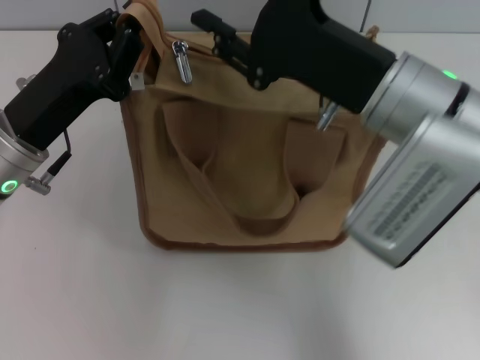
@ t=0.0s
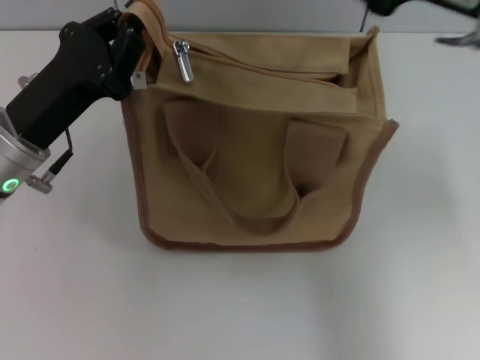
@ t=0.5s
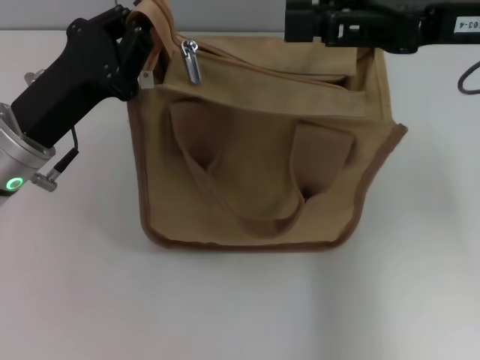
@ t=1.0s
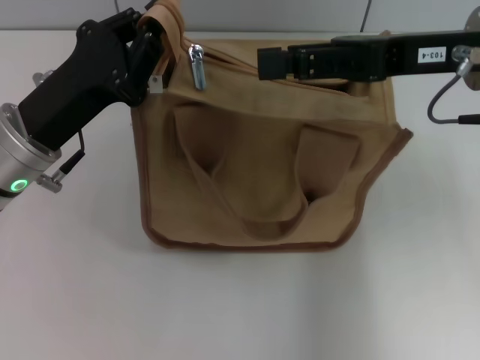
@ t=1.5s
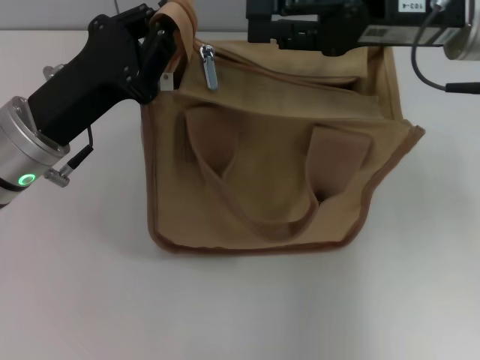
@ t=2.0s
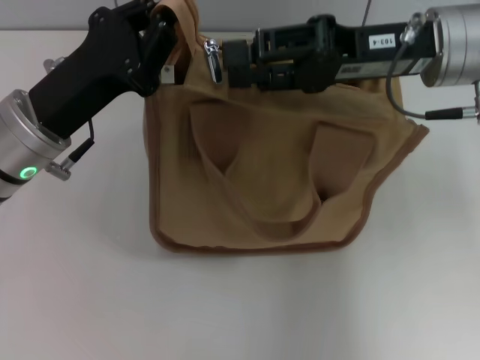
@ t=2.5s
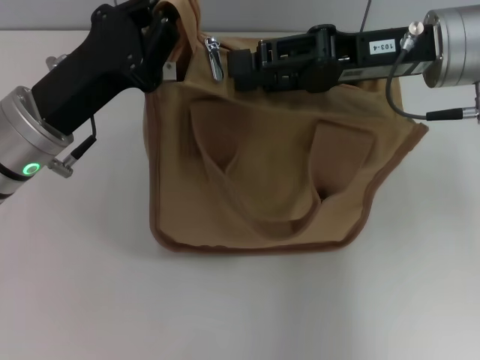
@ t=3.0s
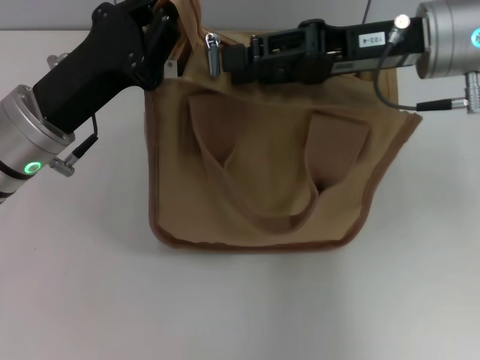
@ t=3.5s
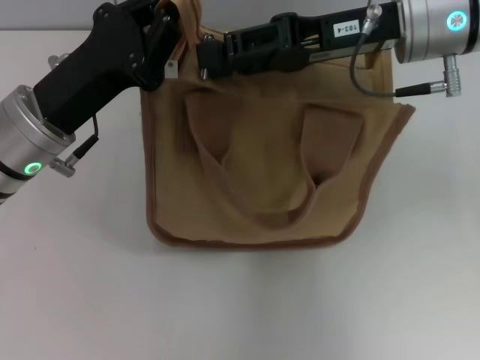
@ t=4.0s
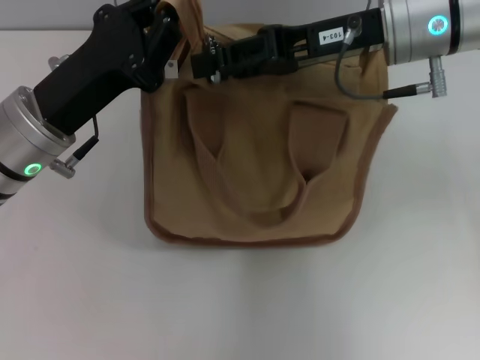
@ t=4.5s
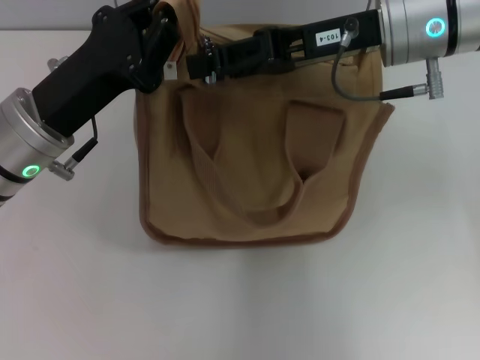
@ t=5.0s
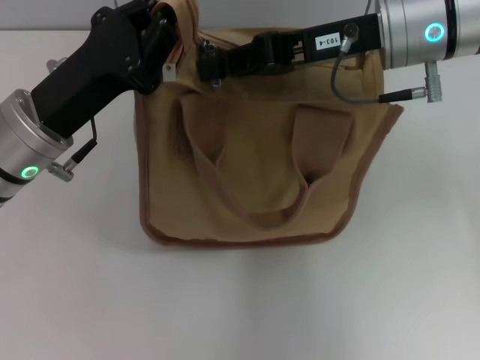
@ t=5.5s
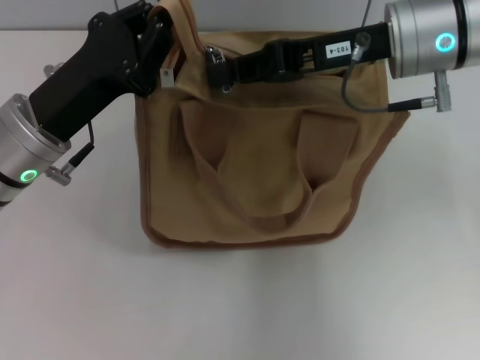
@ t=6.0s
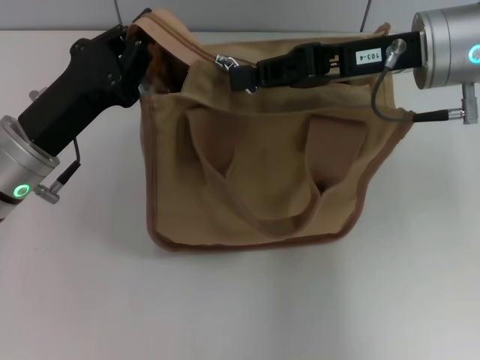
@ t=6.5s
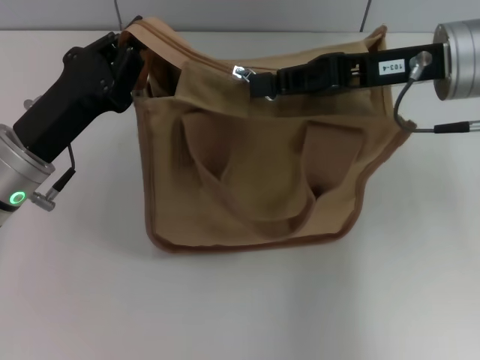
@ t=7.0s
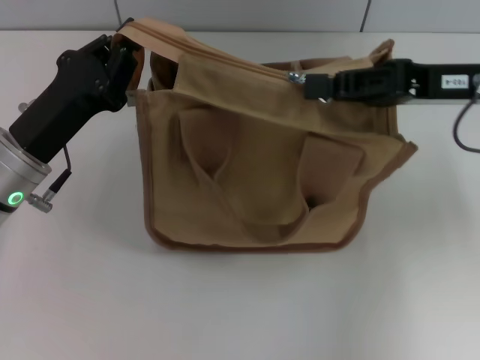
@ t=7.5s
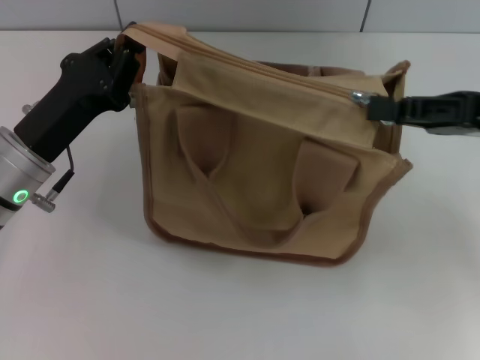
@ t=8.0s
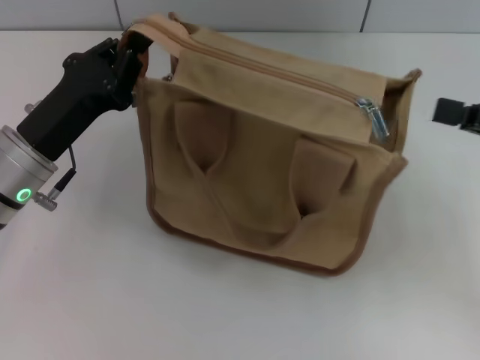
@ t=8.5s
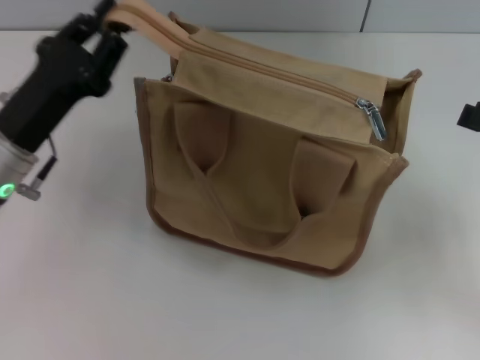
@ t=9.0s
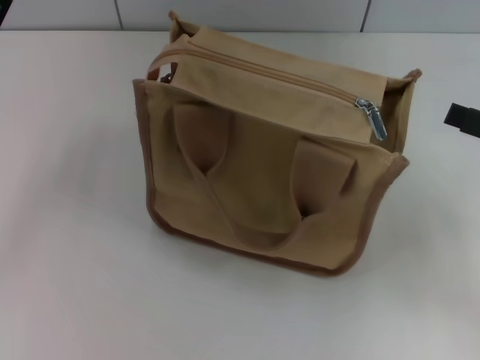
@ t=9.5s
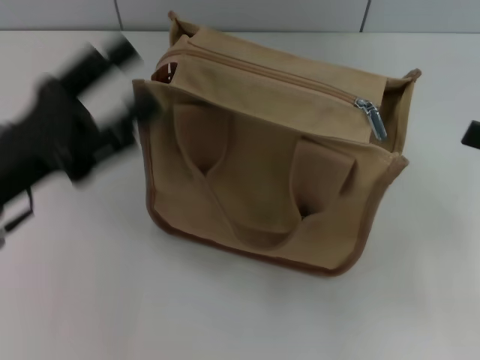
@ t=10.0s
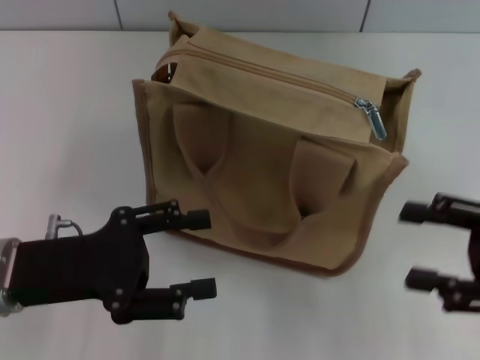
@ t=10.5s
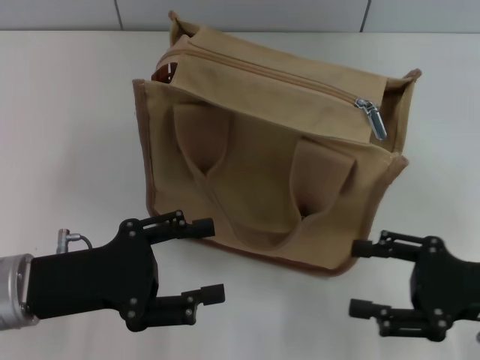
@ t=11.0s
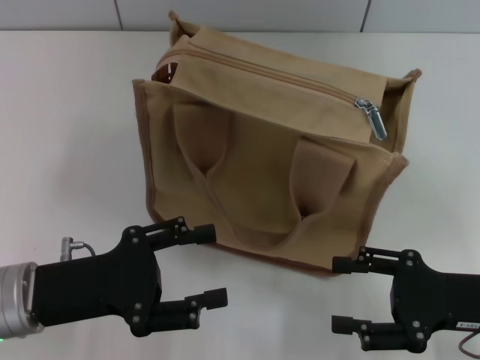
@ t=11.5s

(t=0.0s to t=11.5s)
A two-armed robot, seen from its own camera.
Step, t=0.0s - t=8.0s: Pull up the zipper with your right hand.
t=0.0s - t=2.0s: The right gripper heads forward and to the right, covering about 10 cm.
t=4.0s - t=6.0s: The right gripper closes up.
t=6.0s - t=7.5s: The right gripper travels to the right by approximately 10 cm.
t=7.5s - t=9.5s: The left gripper heads to the left, covering about 5 cm, and opens up. Meanwhile the right gripper shifts some 15 cm to the right and backward, and opens up.
t=9.5s - t=11.5s: The left gripper goes some 10 cm backward and downward, while the right gripper goes some 10 cm downward and to the left.

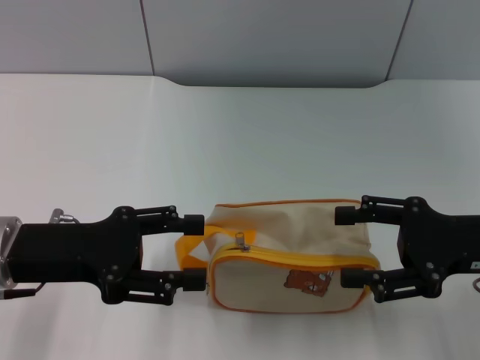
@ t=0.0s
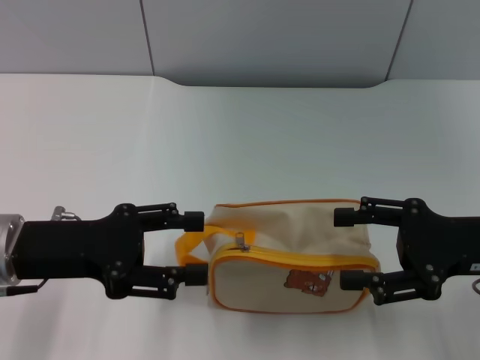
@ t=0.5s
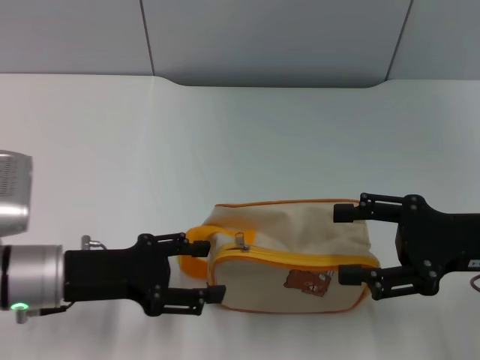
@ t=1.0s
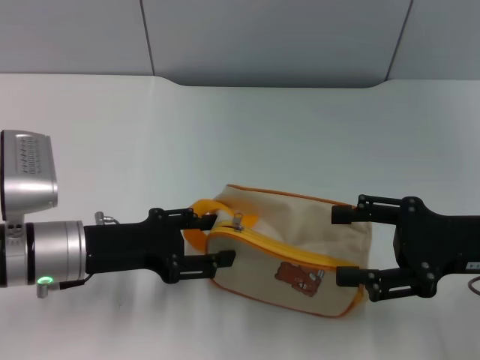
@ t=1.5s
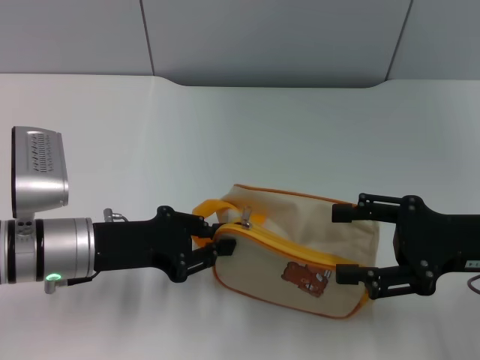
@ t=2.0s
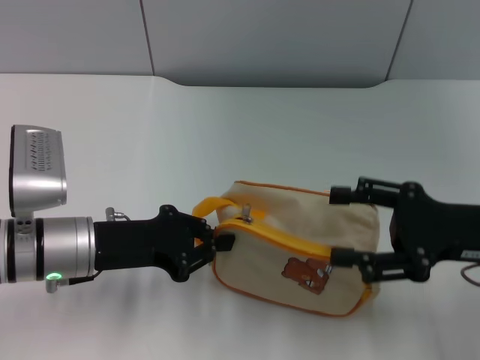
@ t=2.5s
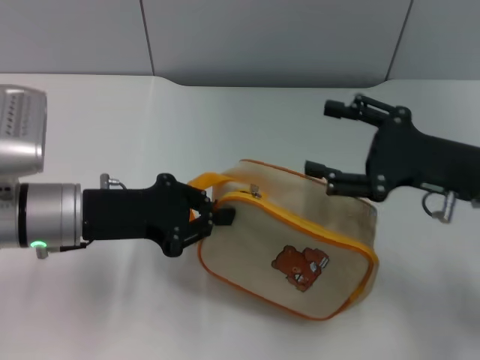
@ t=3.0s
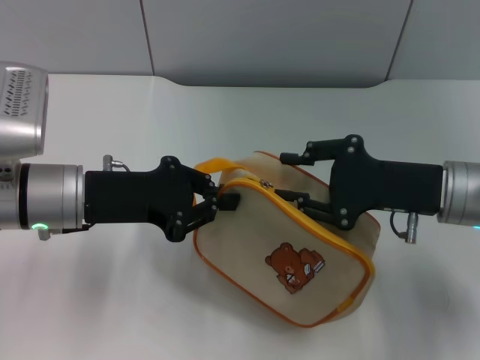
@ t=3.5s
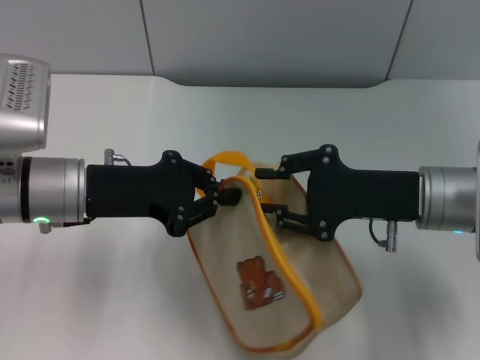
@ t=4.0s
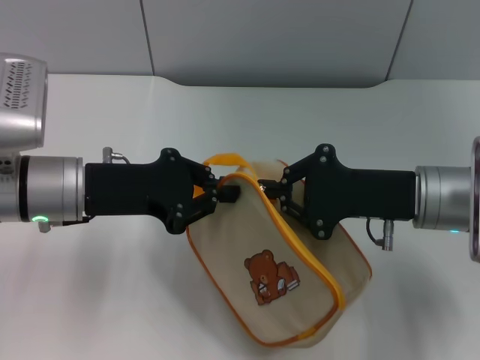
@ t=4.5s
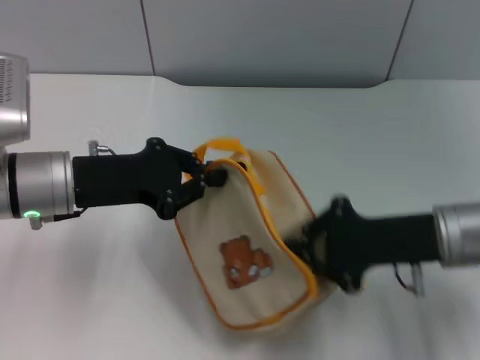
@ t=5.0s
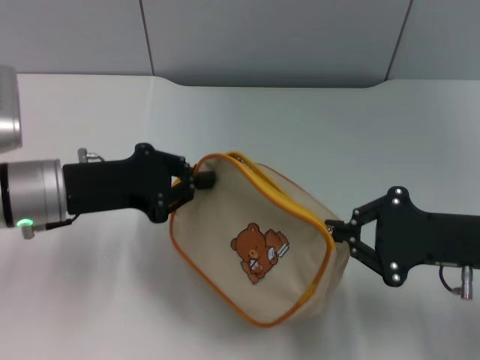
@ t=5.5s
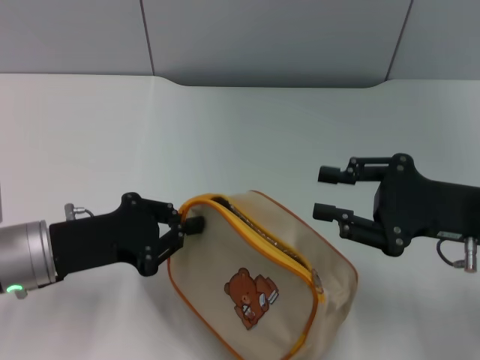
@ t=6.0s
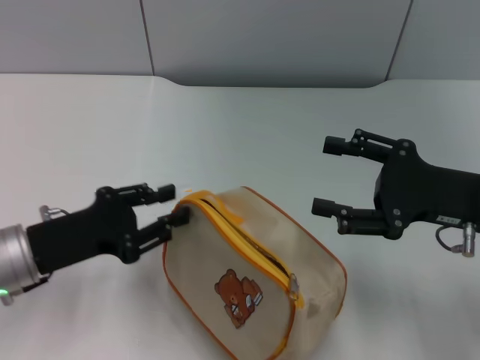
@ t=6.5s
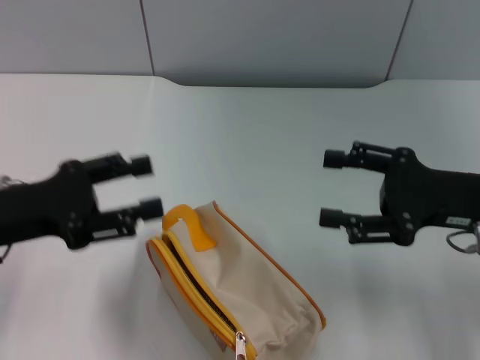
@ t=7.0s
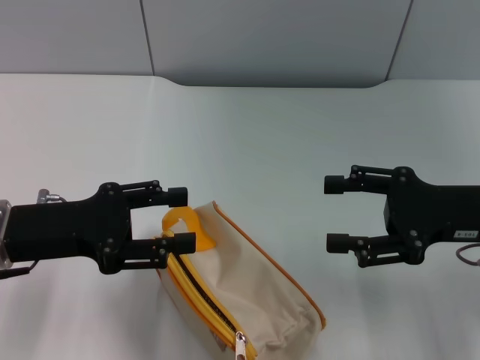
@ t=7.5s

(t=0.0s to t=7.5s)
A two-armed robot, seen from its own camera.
Step, t=0.0s - t=3.0s: Pick up the bag with left gripper.
Step, t=3.5s - t=5.5s: Unzip the zipper of bag with right gripper.
Step, t=6.0s - t=6.5s: Place the bag on the table with left gripper.
t=0.0s - t=2.0s: The left gripper travels downward by some 5 cm, and closes up.
t=2.0s - t=4.0s: The right gripper heads to the left, covering about 5 cm, and closes, while the left gripper goes roughly 5 cm upward, and closes up.
t=4.0s - t=5.5s: The right gripper is displaced to the right by some 5 cm, and closes up.
t=5.5s - t=7.5s: The right gripper opens its fingers. Meanwhile the left gripper moves some 5 cm, and opens.

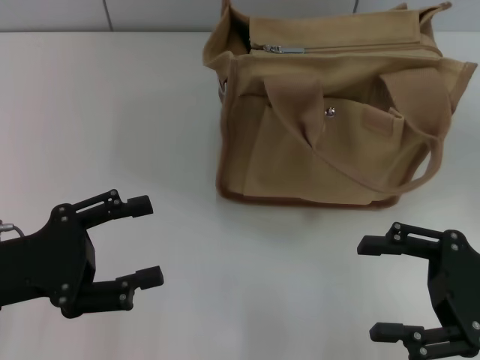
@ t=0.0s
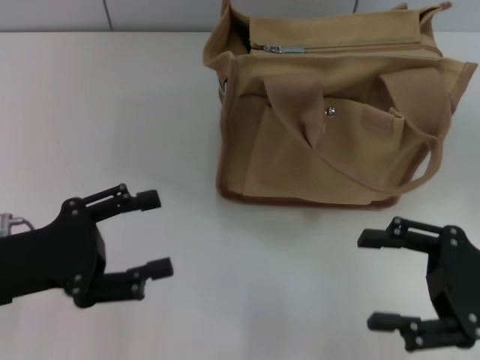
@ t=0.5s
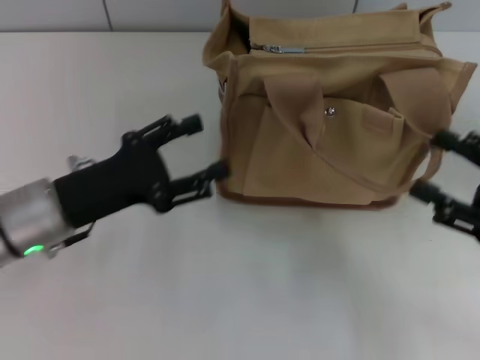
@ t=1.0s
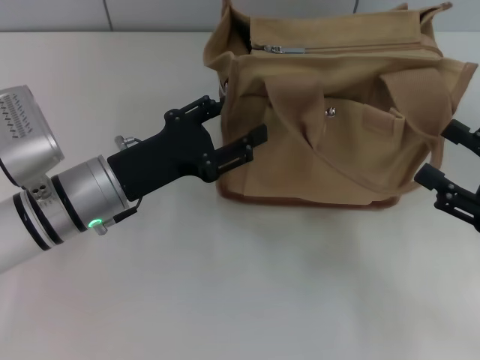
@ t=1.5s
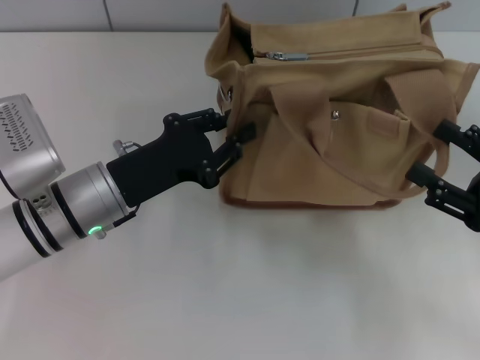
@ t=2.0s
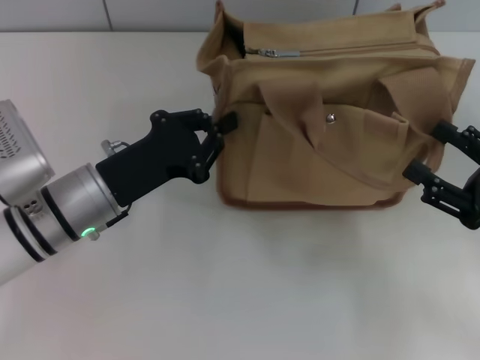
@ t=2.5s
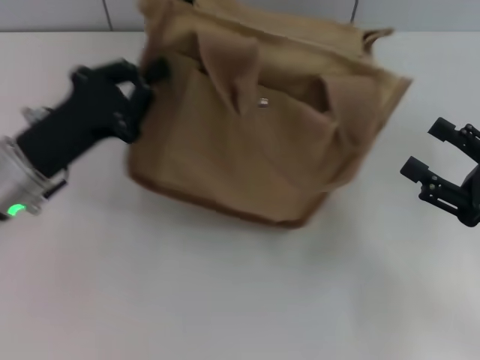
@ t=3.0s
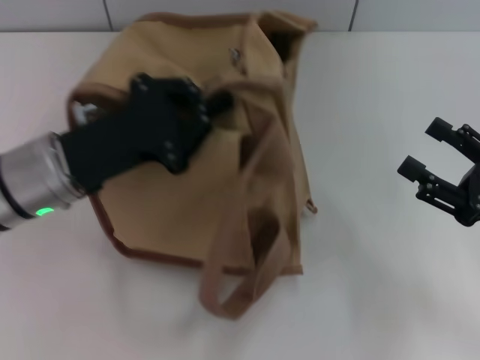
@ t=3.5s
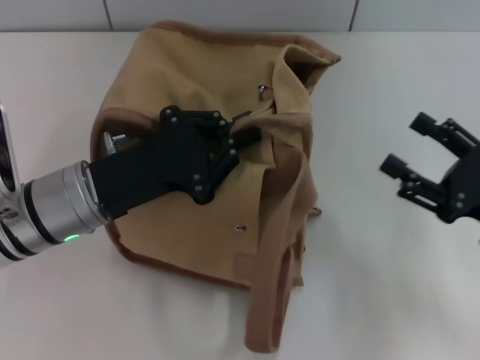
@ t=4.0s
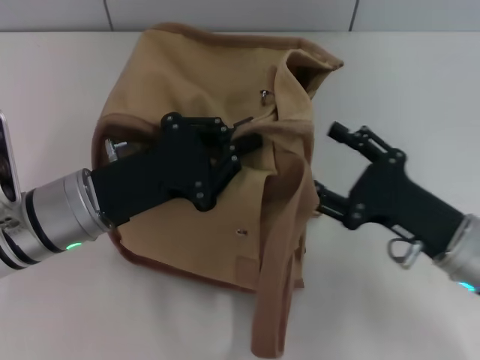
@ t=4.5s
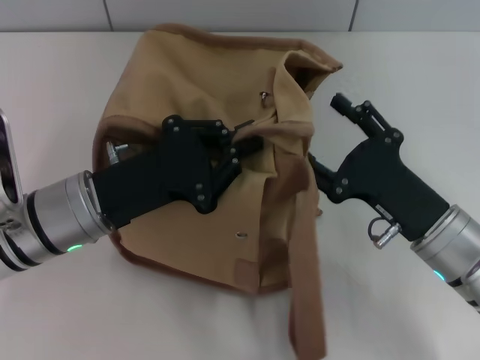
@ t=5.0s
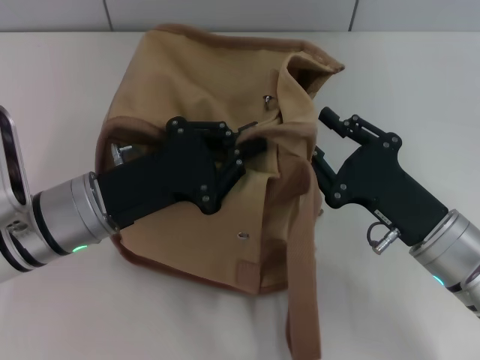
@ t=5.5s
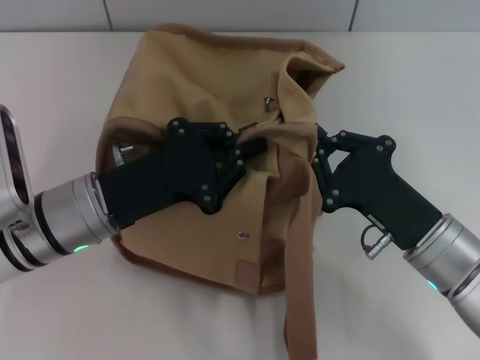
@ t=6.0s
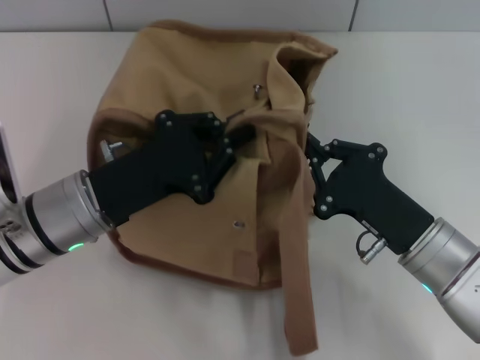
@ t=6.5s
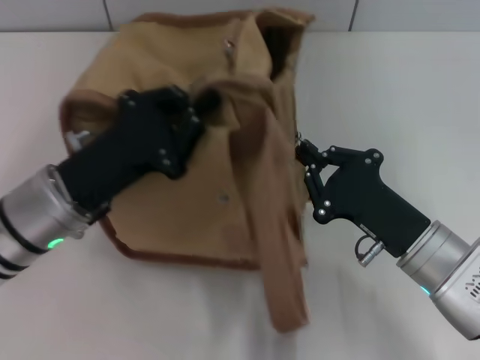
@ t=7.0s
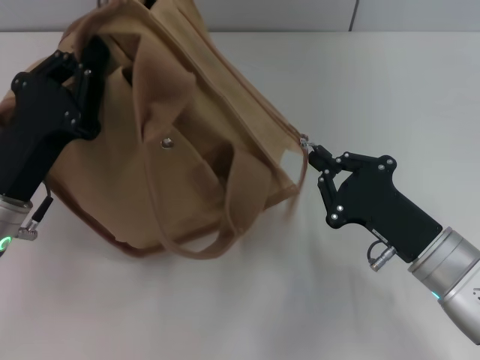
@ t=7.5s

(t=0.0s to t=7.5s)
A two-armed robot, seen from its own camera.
t=0.0s - t=2.0s: The left gripper travels to the right and forward by some 15 cm, and closes.
t=2.0s - t=4.0s: The left gripper closes up.
t=4.0s - t=5.5s: The right gripper goes about 10 cm to the left, and closes.
t=5.5s - t=7.5s: The left gripper moves to the left, about 5 cm; the right gripper closes.
